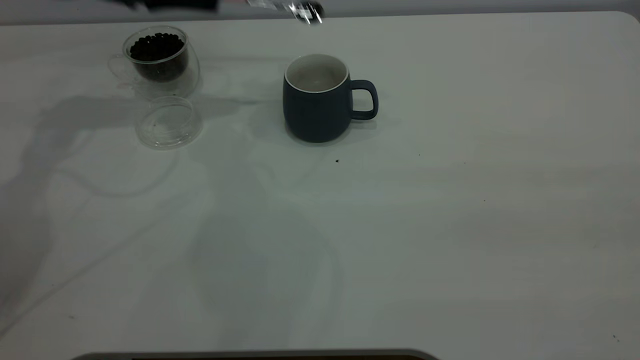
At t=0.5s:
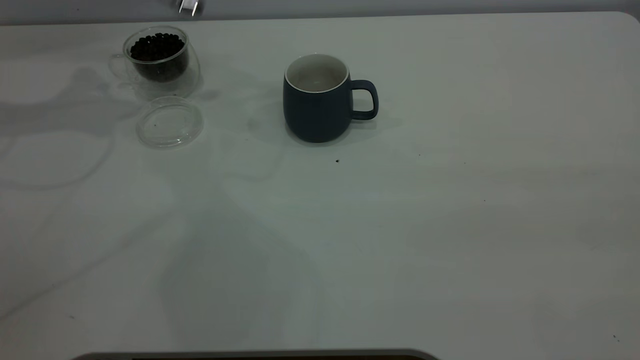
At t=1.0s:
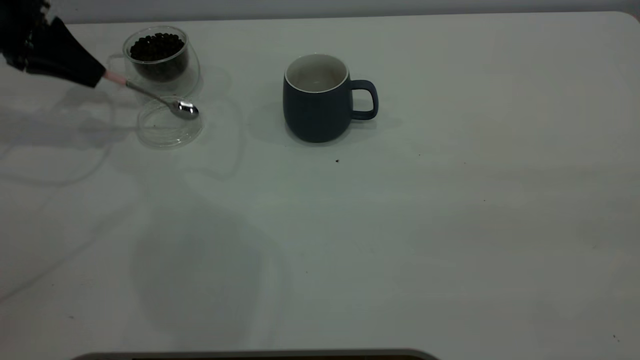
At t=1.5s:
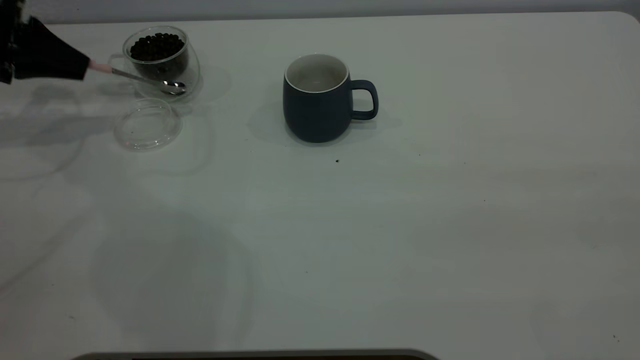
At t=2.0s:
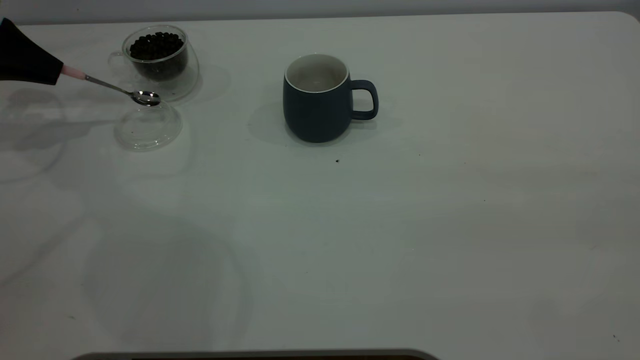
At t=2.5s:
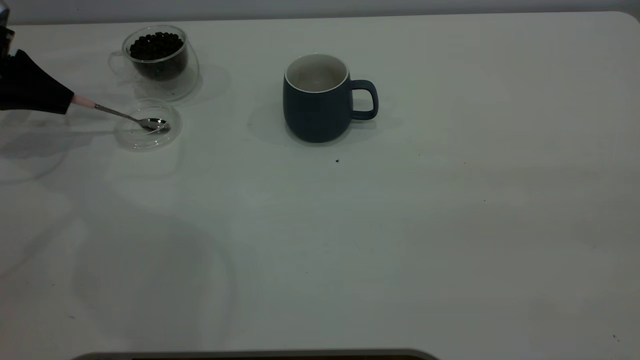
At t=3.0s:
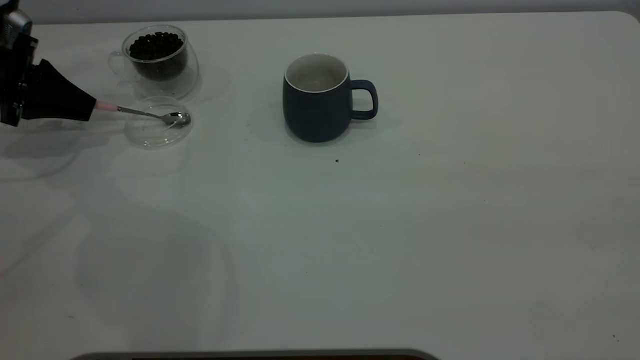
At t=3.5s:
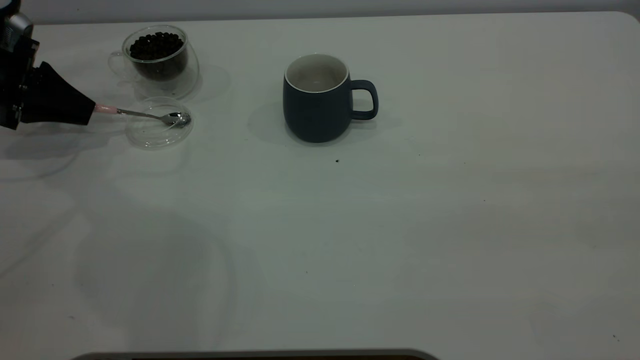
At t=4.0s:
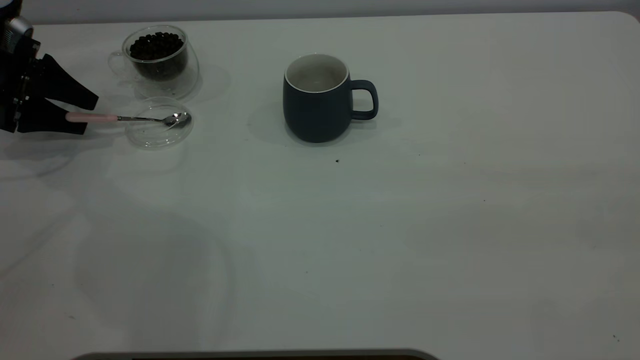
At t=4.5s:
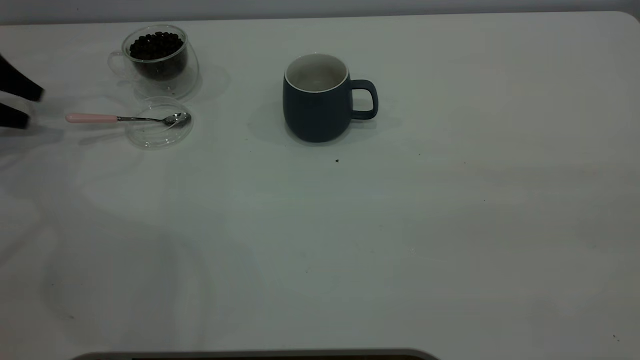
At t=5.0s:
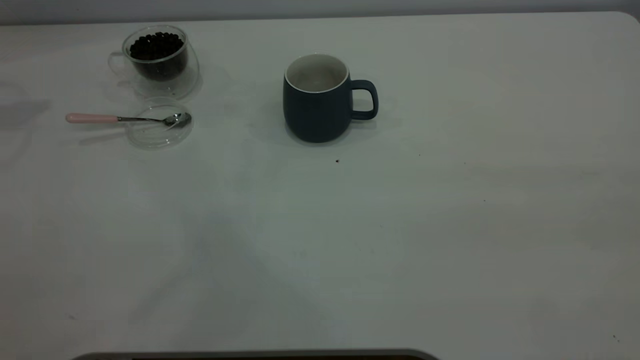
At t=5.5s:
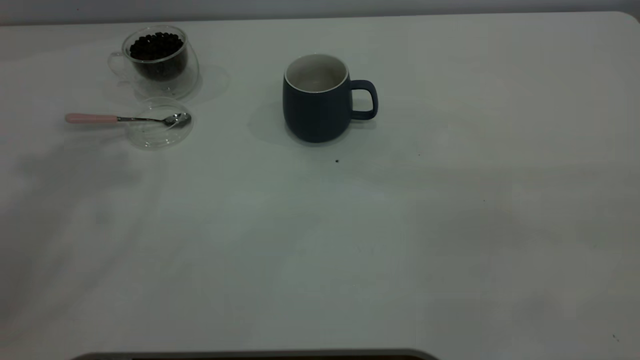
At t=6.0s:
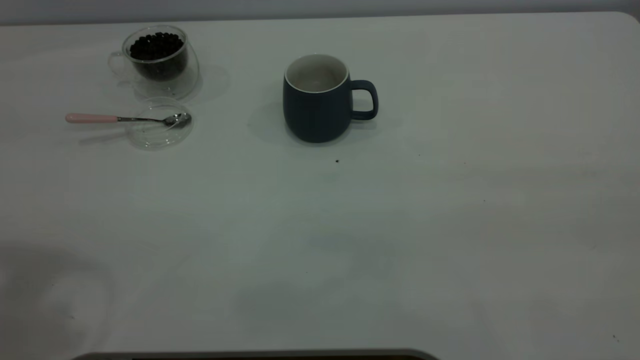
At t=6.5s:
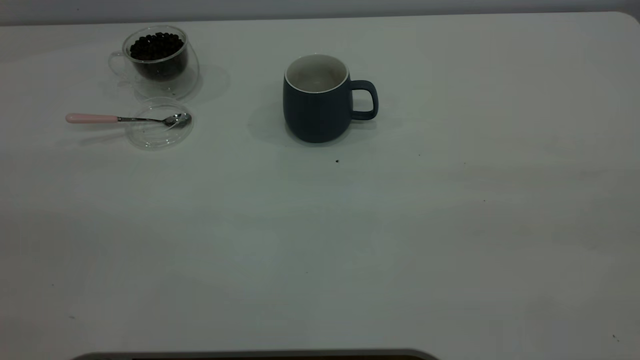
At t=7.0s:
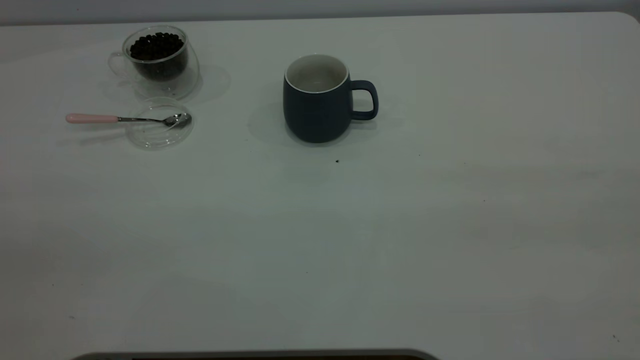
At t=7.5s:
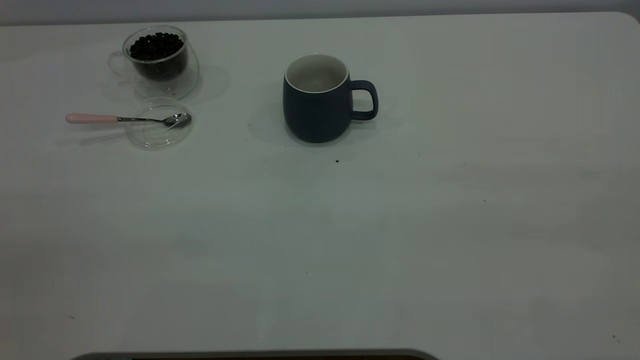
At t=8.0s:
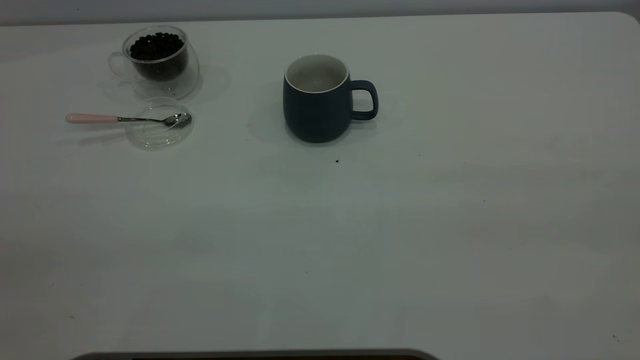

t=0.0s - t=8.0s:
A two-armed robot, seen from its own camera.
Task of the whole recording: the right gripper place the grey cup in the center of the table, the left gripper take the pink spoon from the cup lid and scoop out the coffee beans from the coffee cup and put them into the grey cup, the left gripper put the spoon back into the cup lid.
Step, t=0.0s - t=4.0s: Place the spoon back in its original place.
t=0.0s - t=2.0s: The left gripper is displaced to the left by approximately 15 cm.
t=2.0s - t=4.0s: The left gripper shifts some 5 cm downward, and opens up.
t=4.0s - t=6.0s: The left gripper moves upward, backward and to the right, approximately 50 cm.
